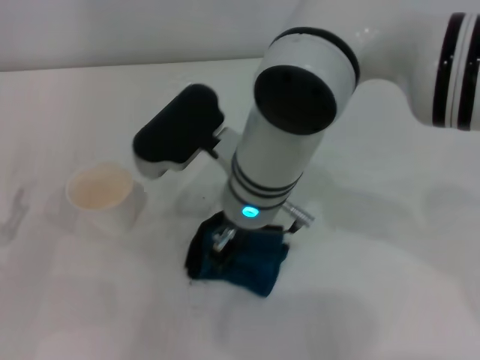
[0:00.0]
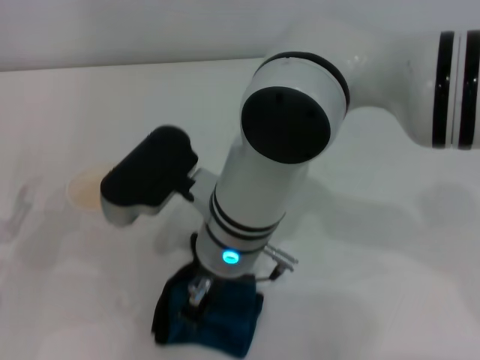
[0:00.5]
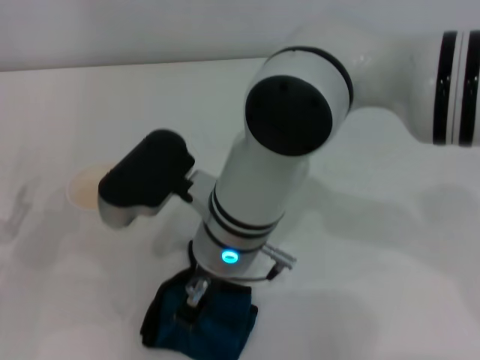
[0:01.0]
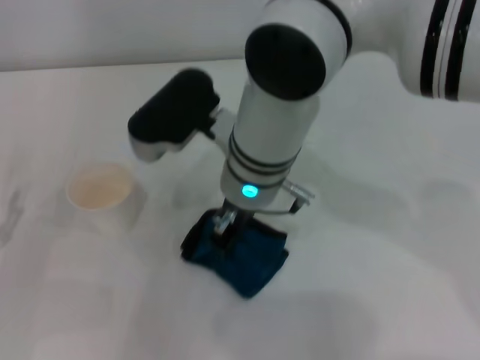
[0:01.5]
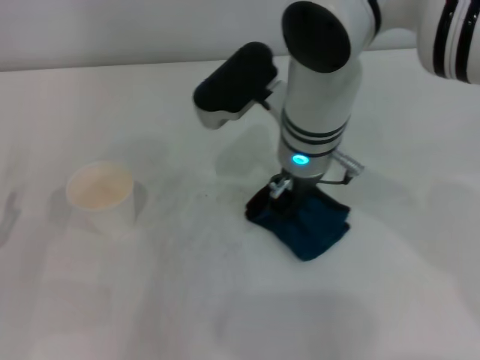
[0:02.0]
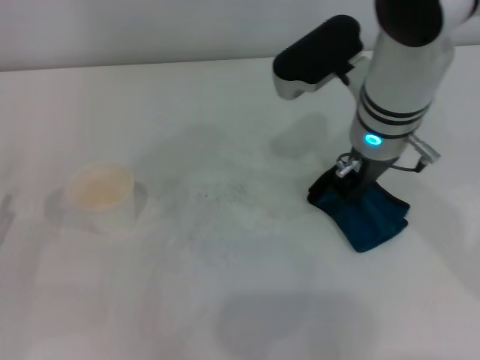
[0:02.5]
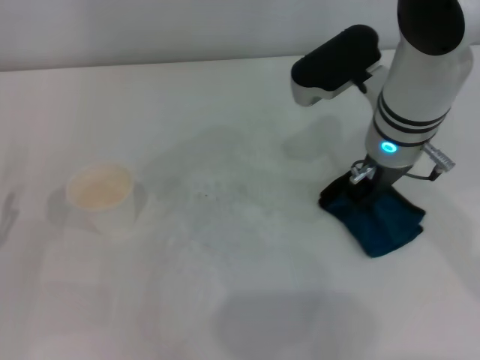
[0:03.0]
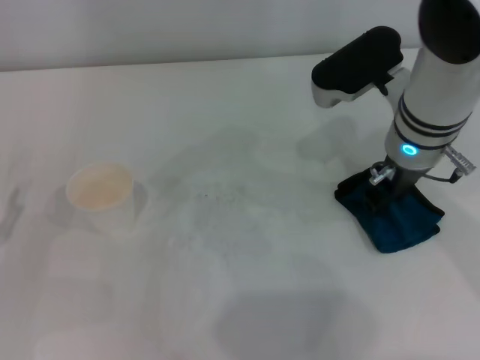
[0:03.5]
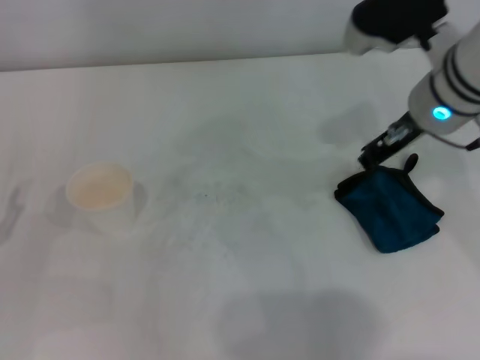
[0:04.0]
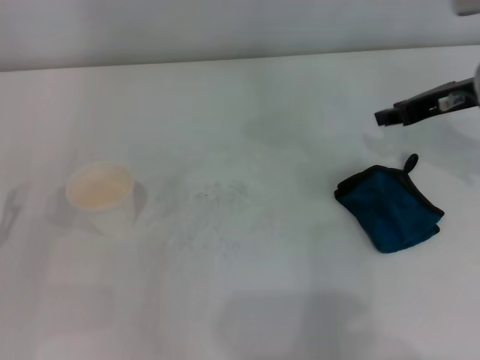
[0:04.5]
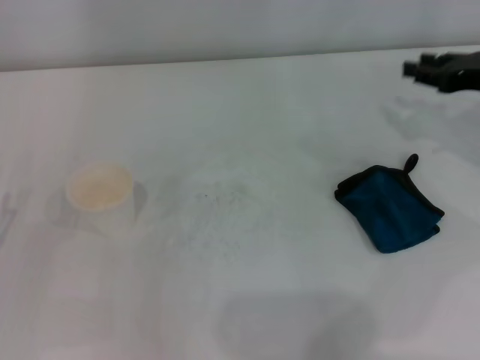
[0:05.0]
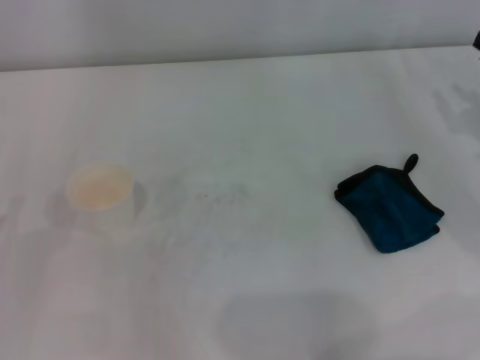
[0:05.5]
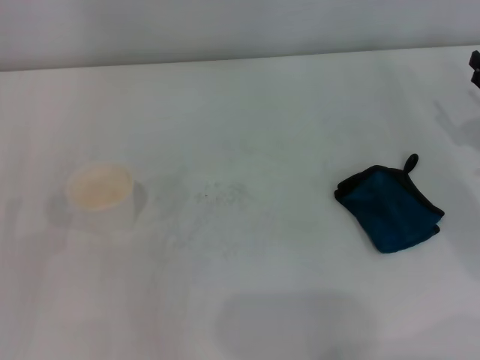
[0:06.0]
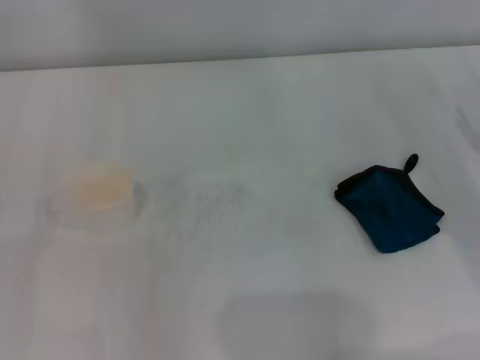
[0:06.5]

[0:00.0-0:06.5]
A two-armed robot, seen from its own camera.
Step, 0.0 to 2.5 s: Wipe the stains off the table with the right gripper.
0.0 to 2.0 s: The right gripper moves to the right, some 5 cm.
2.0 to 4.5 s: The right gripper heads to the right, covering roughly 20 cm, and opens its fingers.
4.5 to 6.5 s: The right gripper goes approximately 15 cm downward, backward and to the right, and opens up.

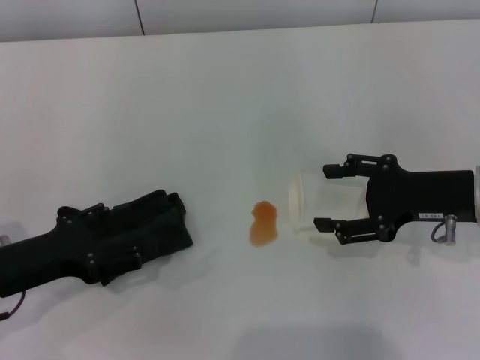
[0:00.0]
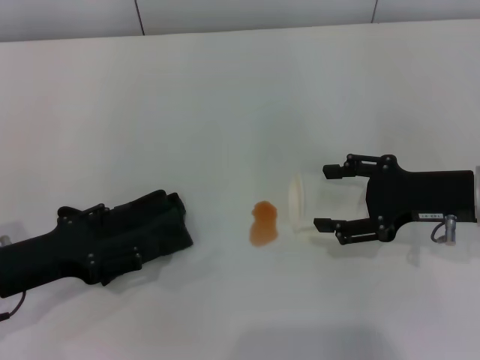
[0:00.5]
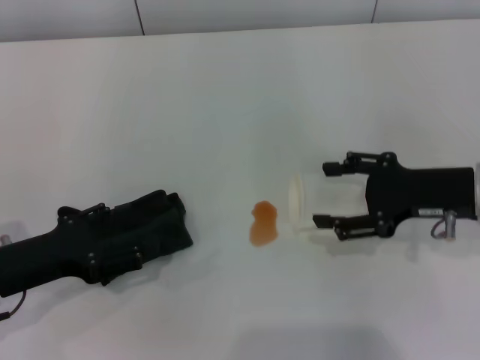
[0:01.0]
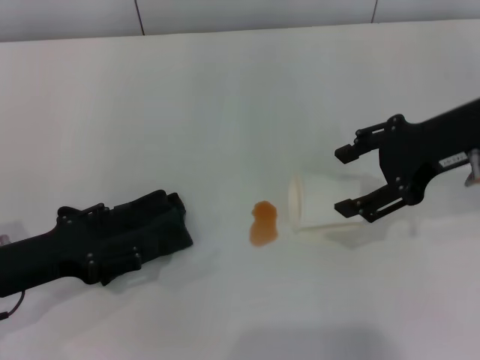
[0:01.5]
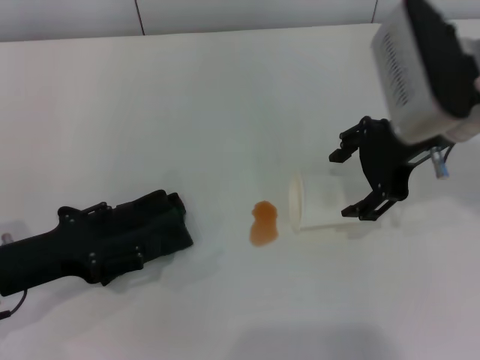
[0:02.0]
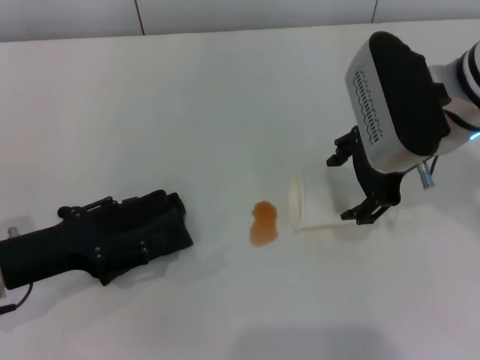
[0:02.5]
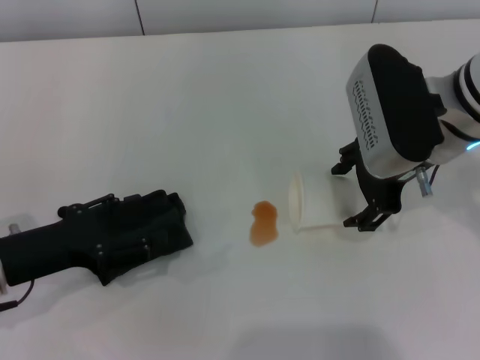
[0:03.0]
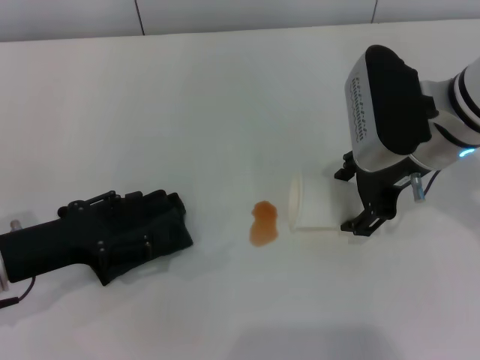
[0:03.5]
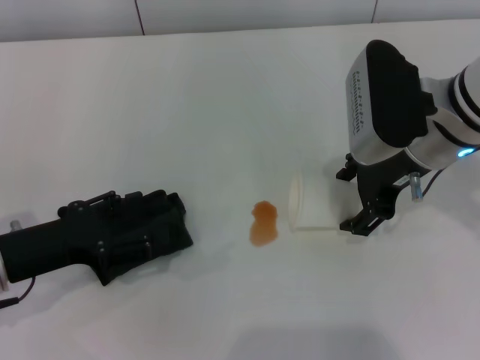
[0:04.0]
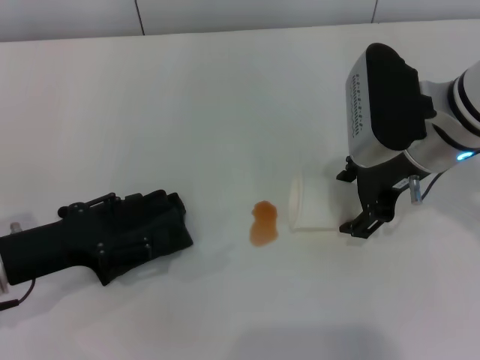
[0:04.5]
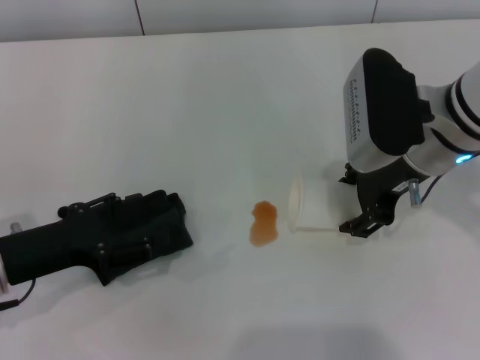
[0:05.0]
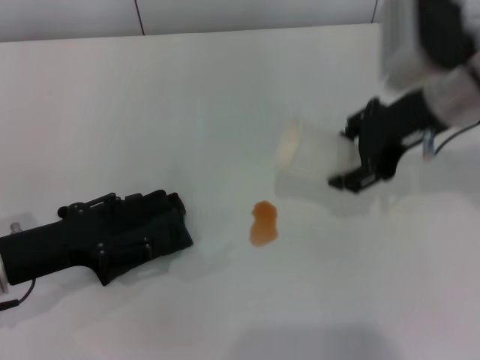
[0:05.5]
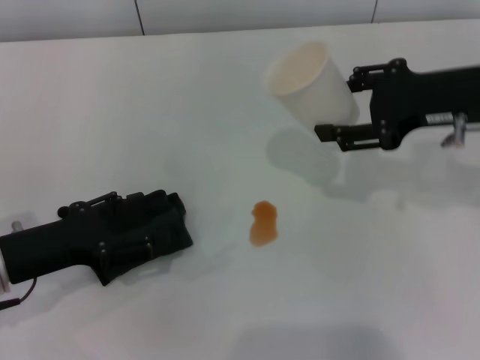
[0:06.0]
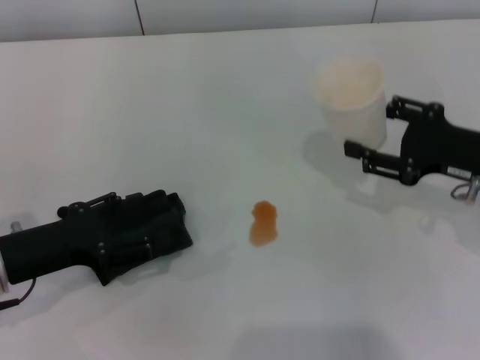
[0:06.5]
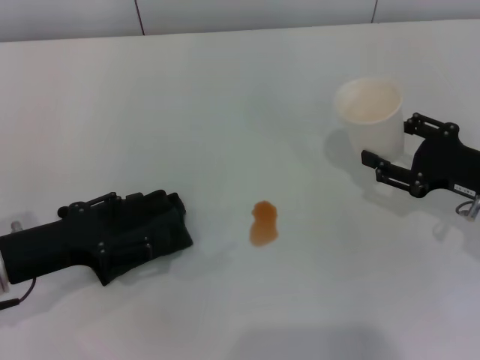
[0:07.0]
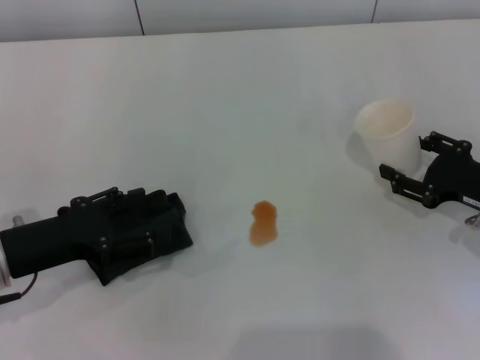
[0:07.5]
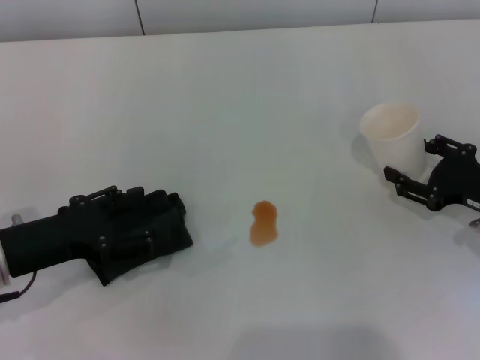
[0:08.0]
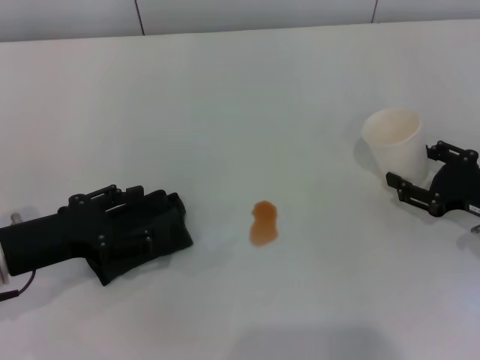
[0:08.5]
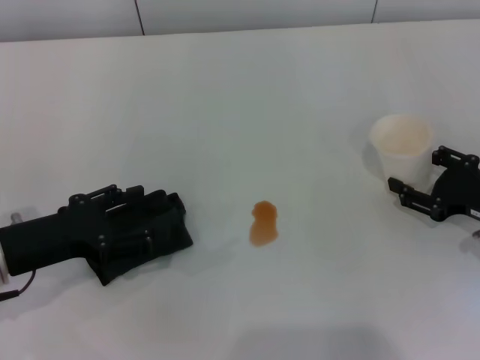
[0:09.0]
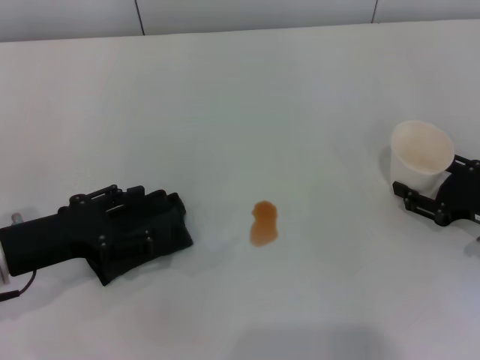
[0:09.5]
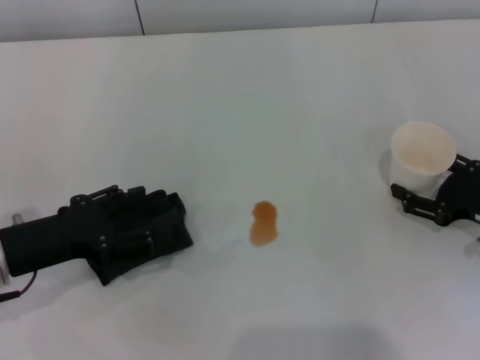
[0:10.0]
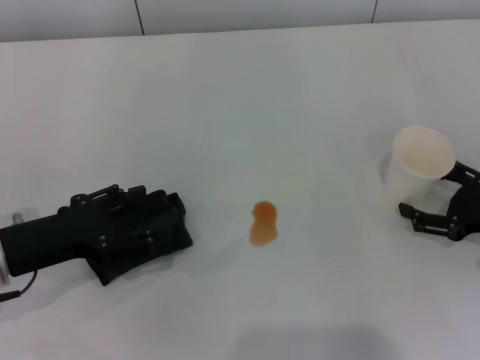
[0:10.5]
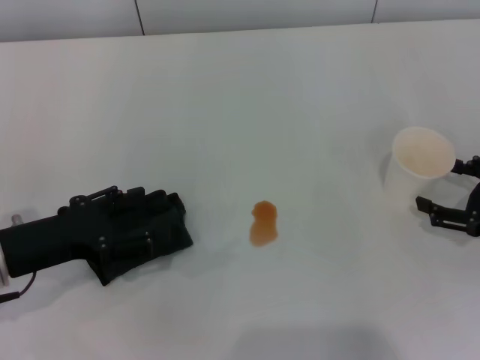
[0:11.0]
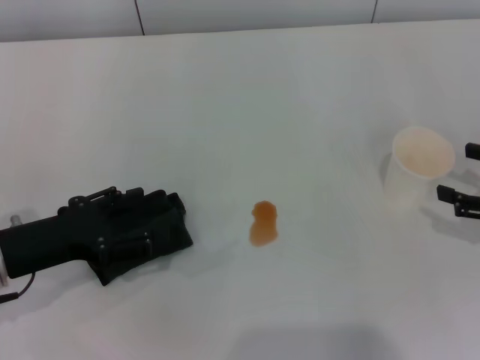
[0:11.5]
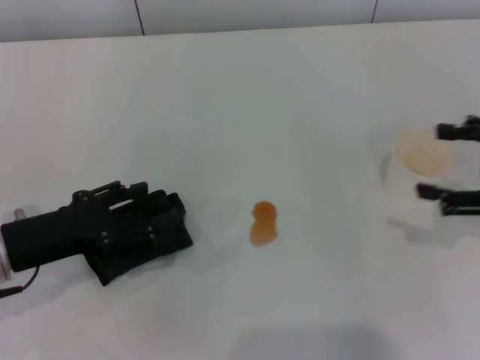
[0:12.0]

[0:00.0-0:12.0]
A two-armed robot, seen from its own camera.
Step, 0.0 to 4.5 s: Grasp the paper cup with the right gripper.
Step, 5.5 to 10.5 s: Stand the paper cup upright with the right gripper.
0.0 to 2.0 s: The right gripper goes roughly 15 cm upward and to the left.
2.0 to 4.0 s: The grippers stay close to where they were, moving slightly.
4.0 to 6.0 s: The right gripper goes approximately 10 cm to the right, and closes up.
6.0 to 8.0 s: The right gripper goes roughly 15 cm downward and to the right.
8.0 to 10.0 s: The grippers stay close to where they were, moving slightly.
10.0 to 12.0 s: The right gripper shifts some 10 cm upward, and opens.

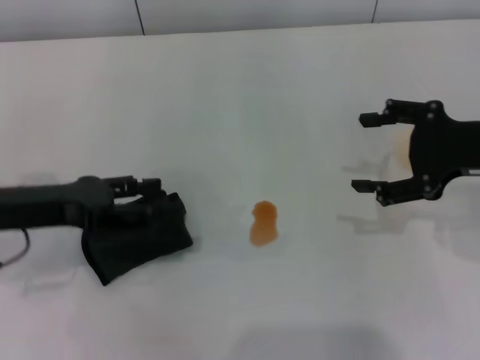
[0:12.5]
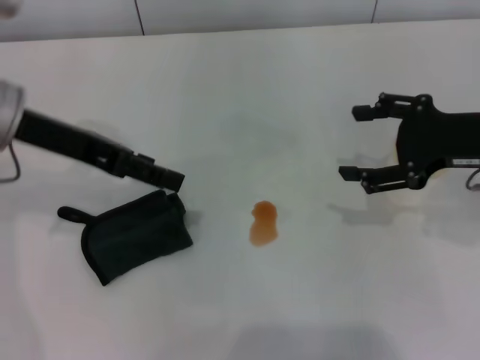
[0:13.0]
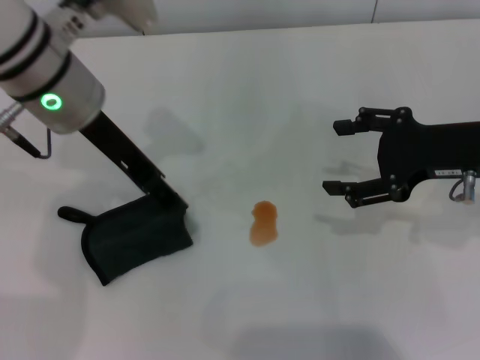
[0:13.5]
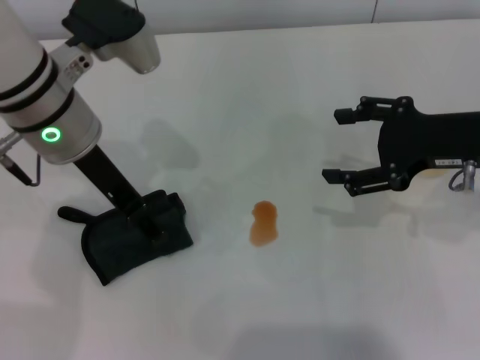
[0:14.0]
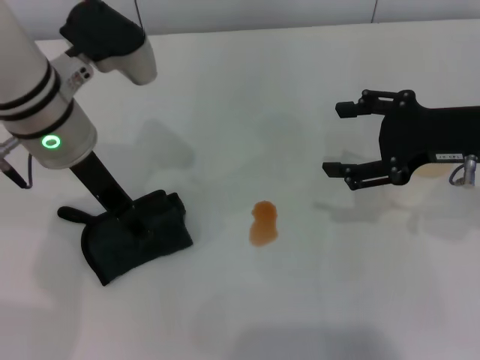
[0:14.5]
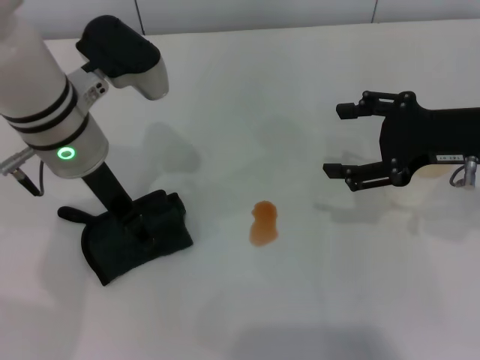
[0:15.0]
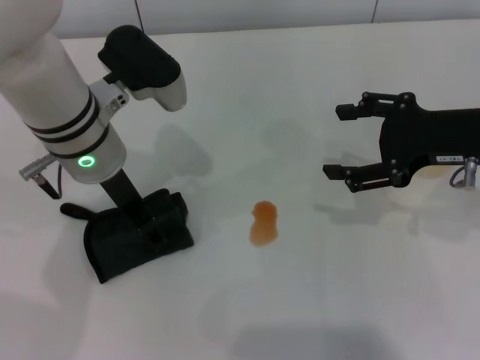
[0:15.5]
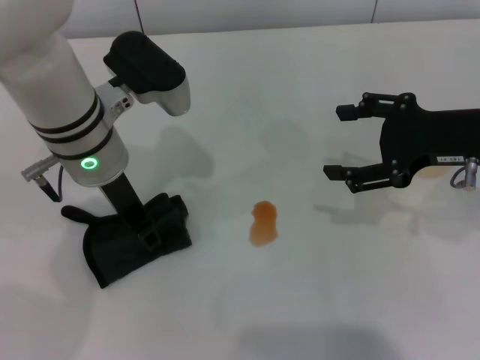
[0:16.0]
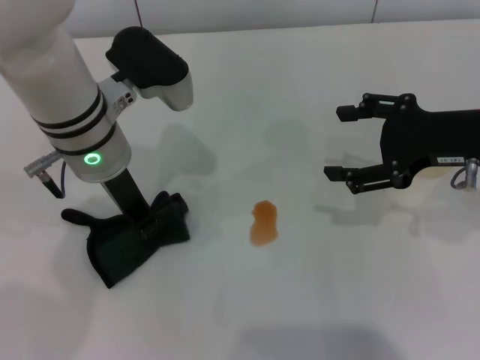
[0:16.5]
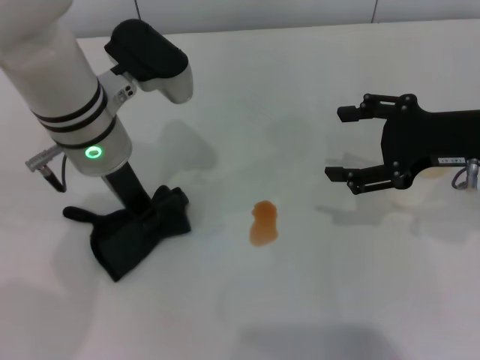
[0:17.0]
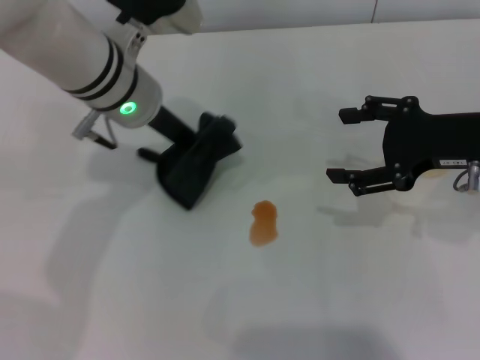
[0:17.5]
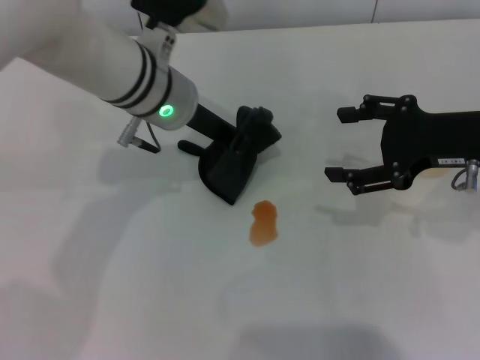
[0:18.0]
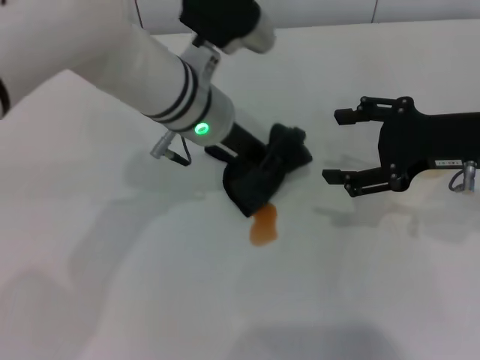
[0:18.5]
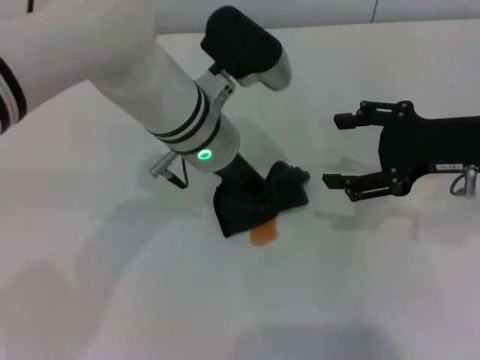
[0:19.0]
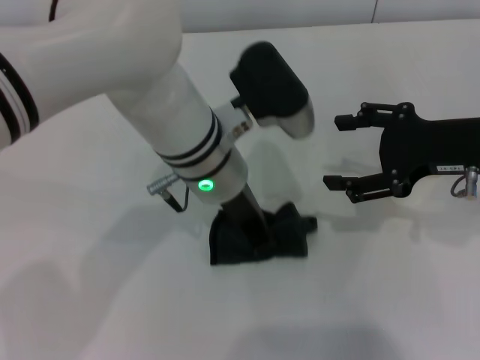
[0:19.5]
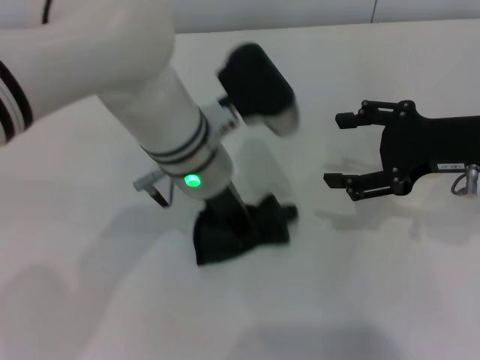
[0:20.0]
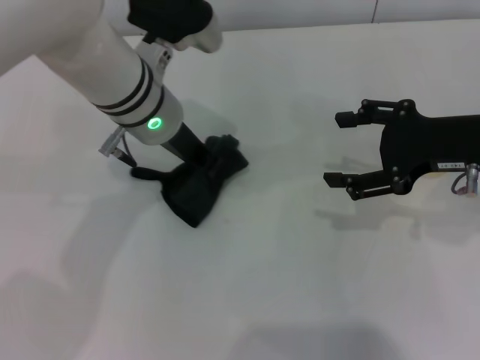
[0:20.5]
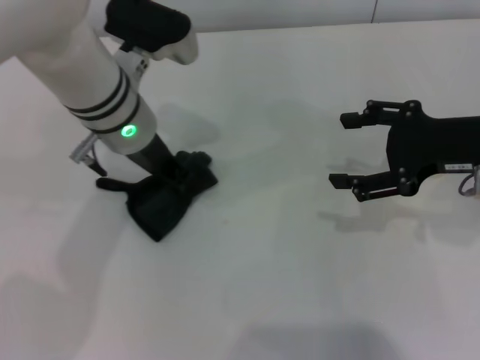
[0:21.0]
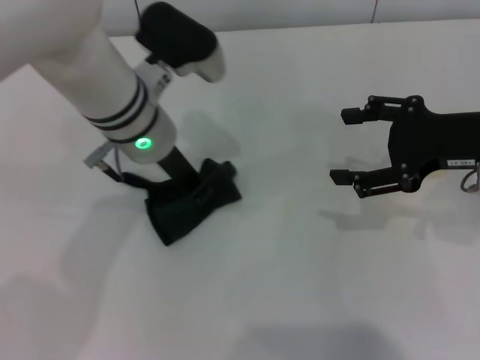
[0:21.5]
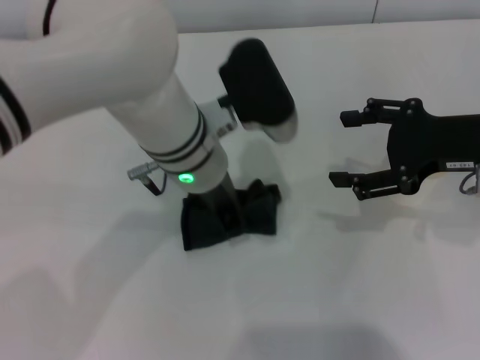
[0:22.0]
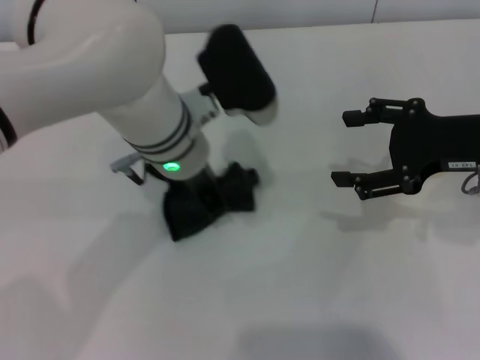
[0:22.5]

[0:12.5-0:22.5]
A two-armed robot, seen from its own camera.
Step, 12.5 to 16.0 s: Grasp the rag with the left gripper.
12.5 to 14.5 s: The left gripper heads to the right, forward and upward, covering some 15 cm.
14.5 to 16.5 s: The left gripper closes.
16.5 to 18.5 s: The left gripper shifts roughly 10 cm to the right.
